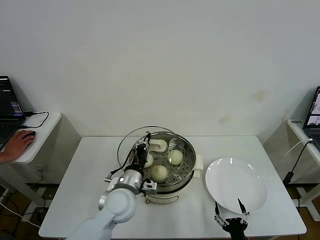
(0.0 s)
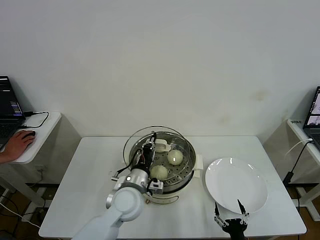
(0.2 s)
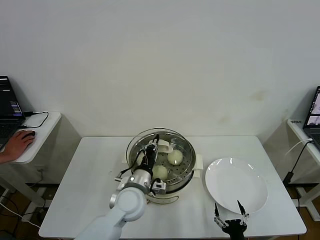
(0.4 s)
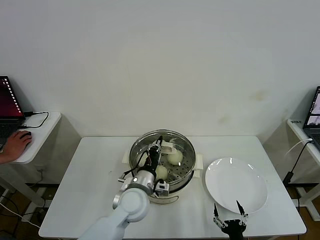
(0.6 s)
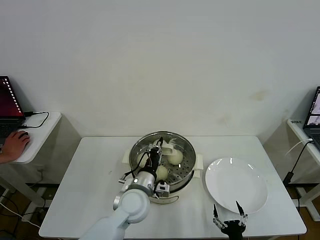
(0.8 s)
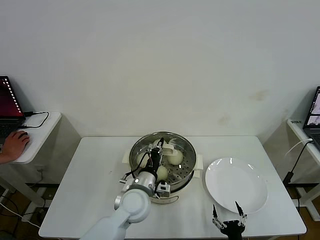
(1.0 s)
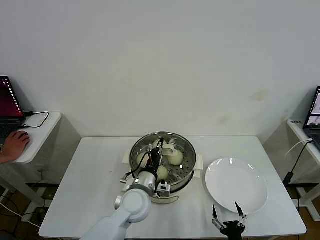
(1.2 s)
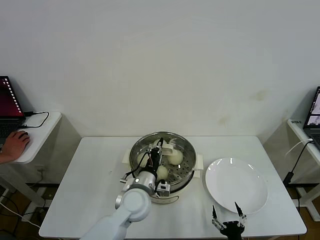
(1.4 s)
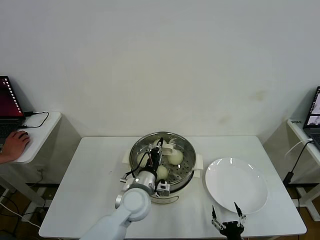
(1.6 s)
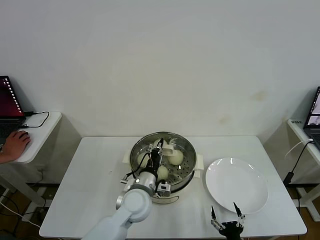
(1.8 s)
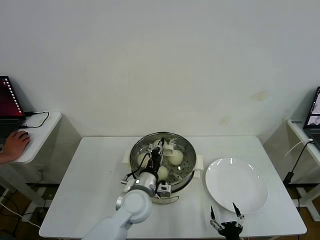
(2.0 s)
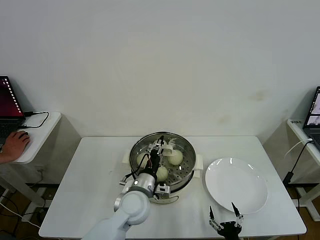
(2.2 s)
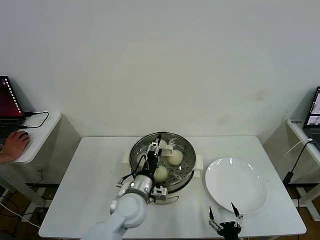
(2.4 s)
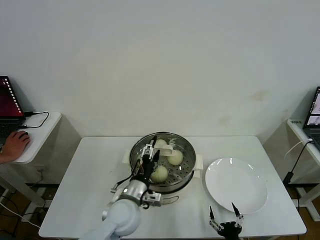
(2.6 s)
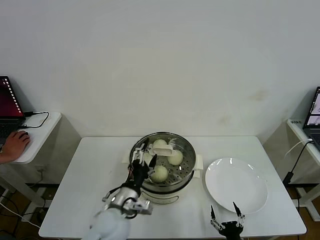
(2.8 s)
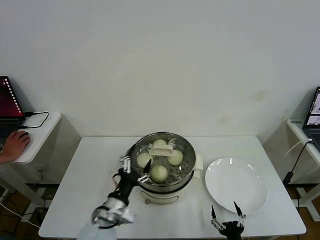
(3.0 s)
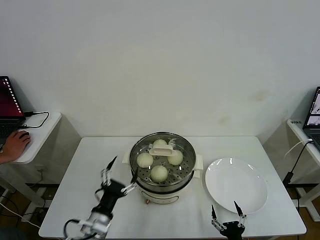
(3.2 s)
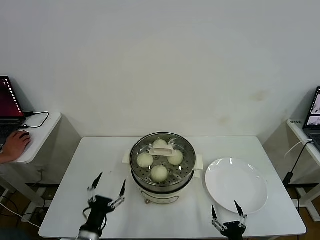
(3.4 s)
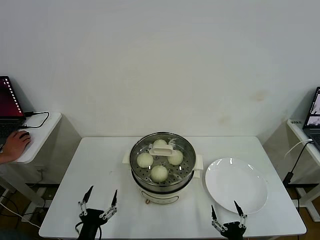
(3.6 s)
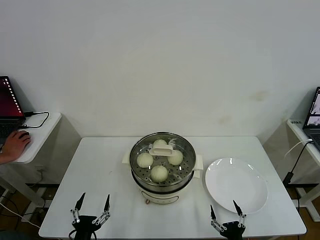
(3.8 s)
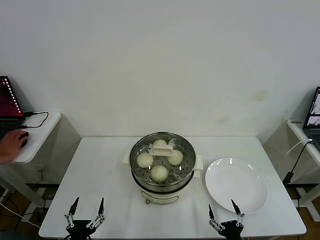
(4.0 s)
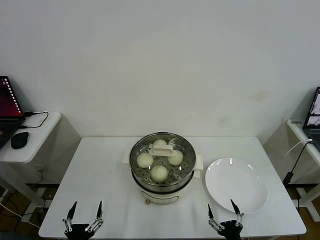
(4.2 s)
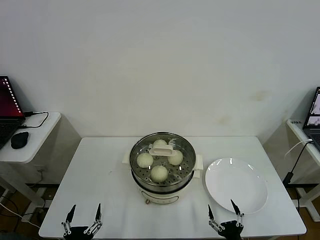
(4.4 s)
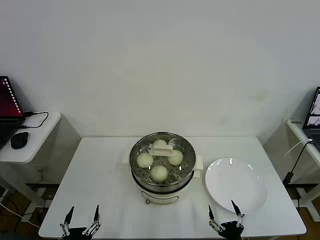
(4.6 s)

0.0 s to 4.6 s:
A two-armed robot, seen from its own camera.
Task of the whole recording: take steamed baozi put them in steamer then cover it.
Step, 0.0 to 2.6 s: Place the pot lid on the steamer with left gripper.
0.0 to 1.6 s: The left gripper moves some 5 cm.
1.6 to 3.0 s: The left gripper goes roughly 10 cm backward and to the left, and opens its fingers.
3.0 to 4.6 s: The left gripper heads backward, to the left and downward, covering roughly 20 cm.

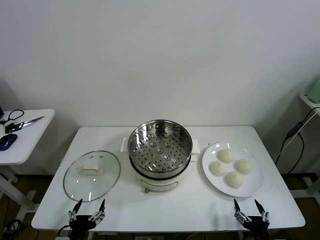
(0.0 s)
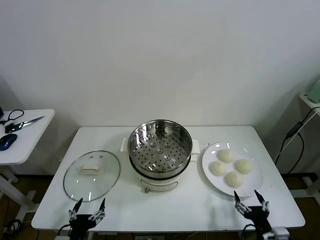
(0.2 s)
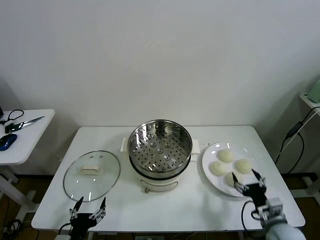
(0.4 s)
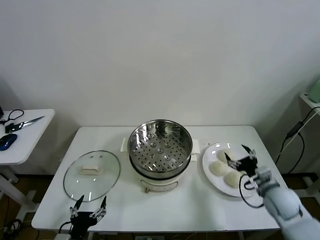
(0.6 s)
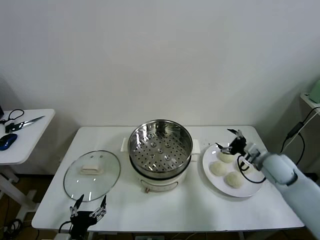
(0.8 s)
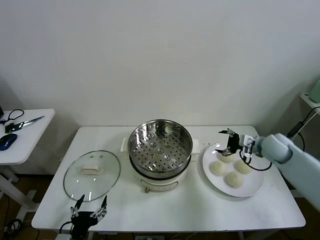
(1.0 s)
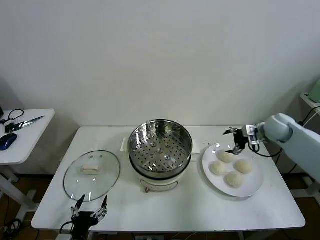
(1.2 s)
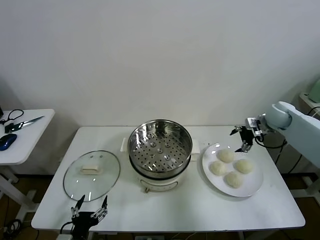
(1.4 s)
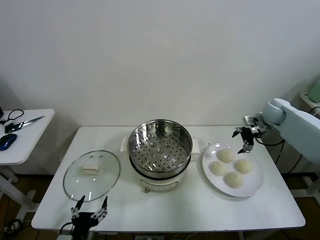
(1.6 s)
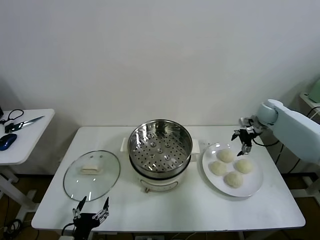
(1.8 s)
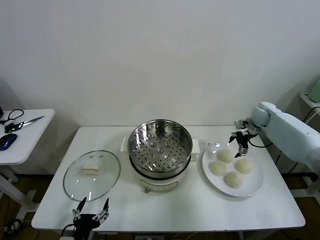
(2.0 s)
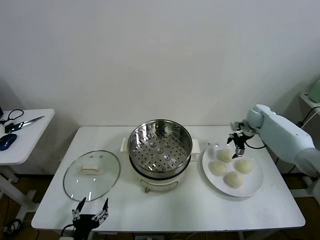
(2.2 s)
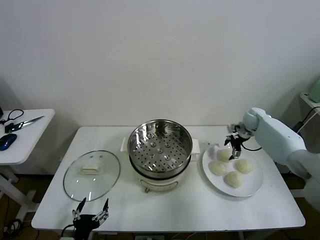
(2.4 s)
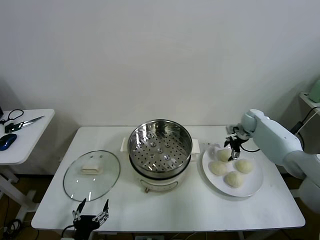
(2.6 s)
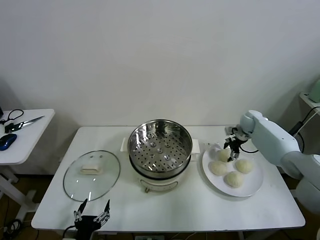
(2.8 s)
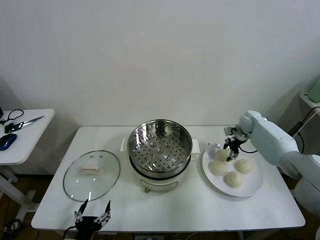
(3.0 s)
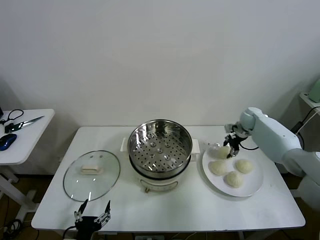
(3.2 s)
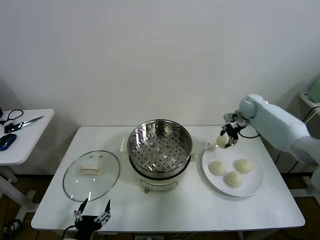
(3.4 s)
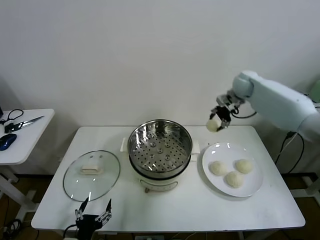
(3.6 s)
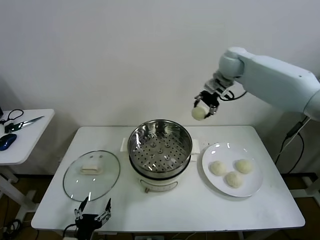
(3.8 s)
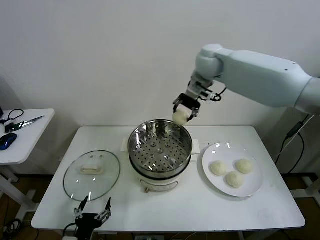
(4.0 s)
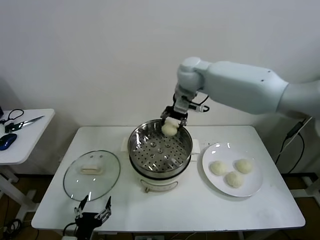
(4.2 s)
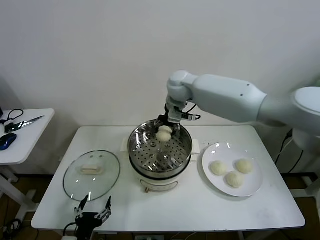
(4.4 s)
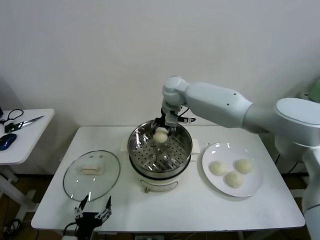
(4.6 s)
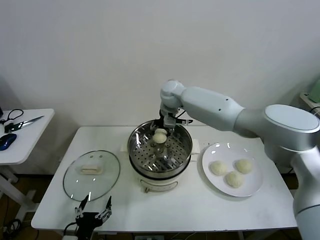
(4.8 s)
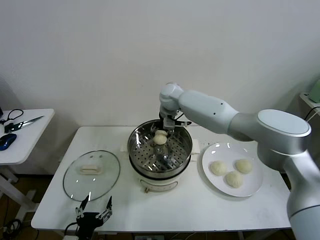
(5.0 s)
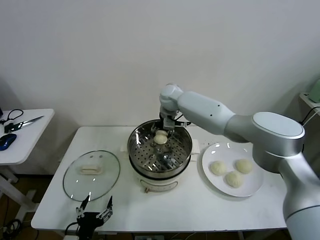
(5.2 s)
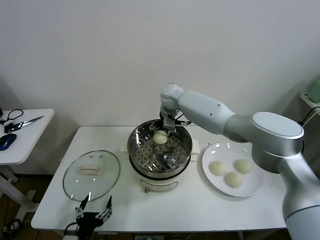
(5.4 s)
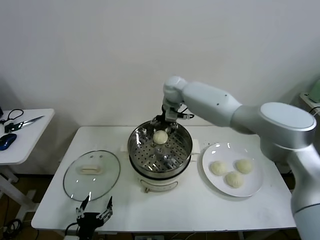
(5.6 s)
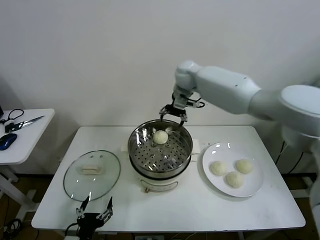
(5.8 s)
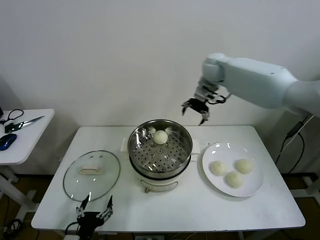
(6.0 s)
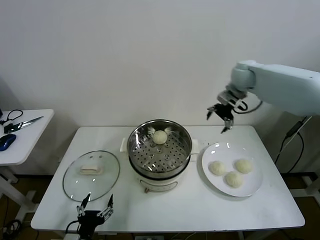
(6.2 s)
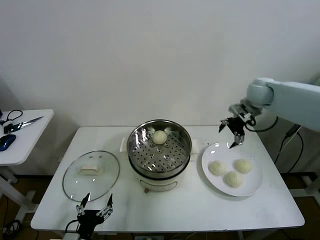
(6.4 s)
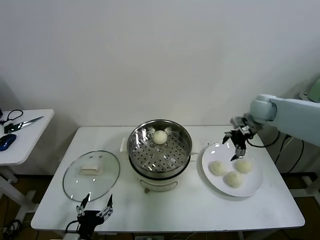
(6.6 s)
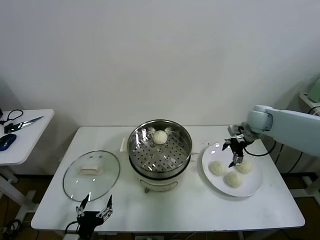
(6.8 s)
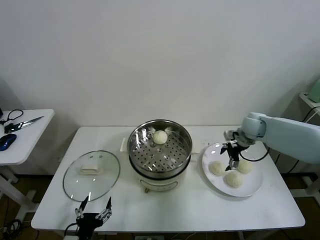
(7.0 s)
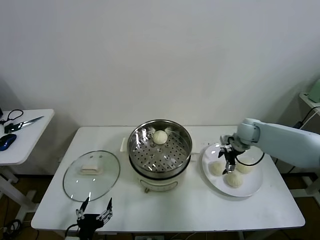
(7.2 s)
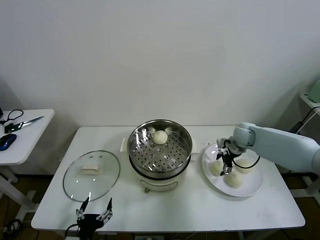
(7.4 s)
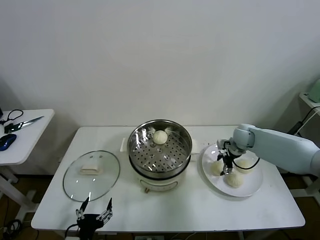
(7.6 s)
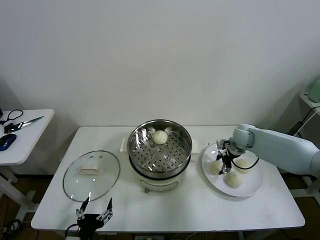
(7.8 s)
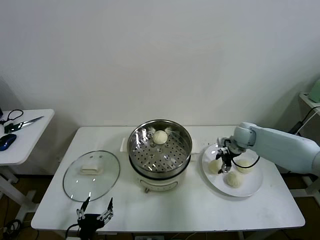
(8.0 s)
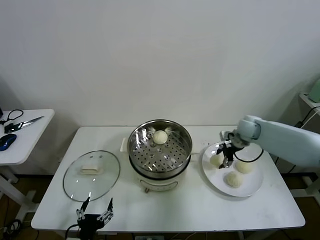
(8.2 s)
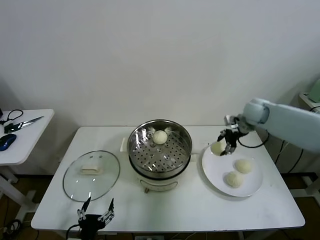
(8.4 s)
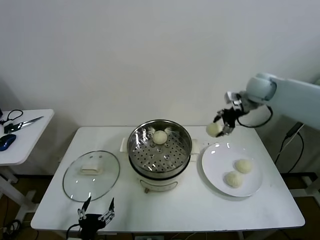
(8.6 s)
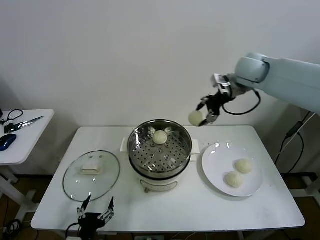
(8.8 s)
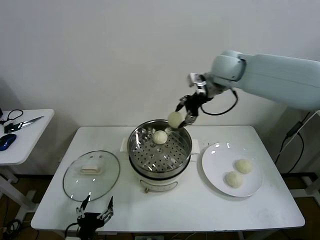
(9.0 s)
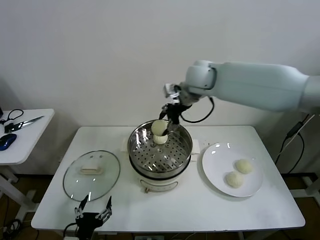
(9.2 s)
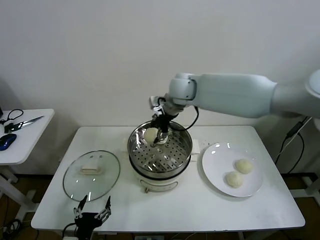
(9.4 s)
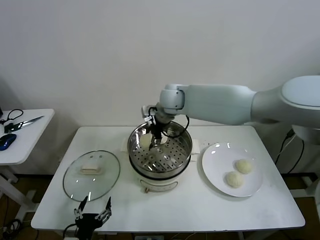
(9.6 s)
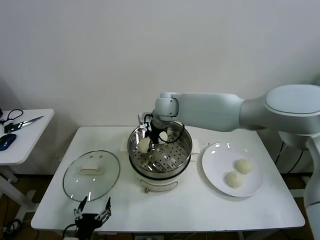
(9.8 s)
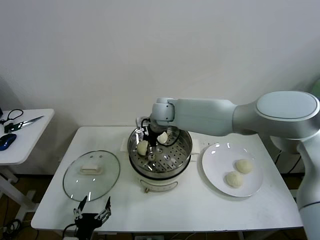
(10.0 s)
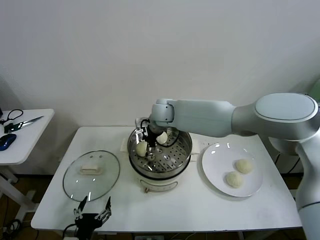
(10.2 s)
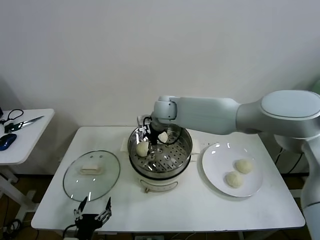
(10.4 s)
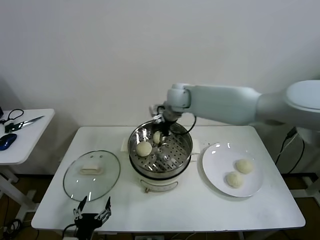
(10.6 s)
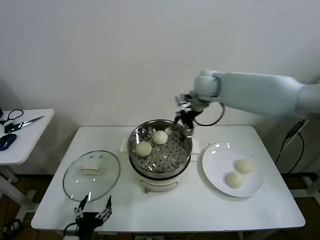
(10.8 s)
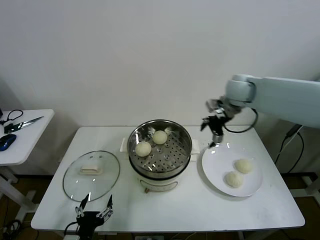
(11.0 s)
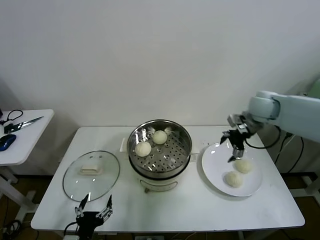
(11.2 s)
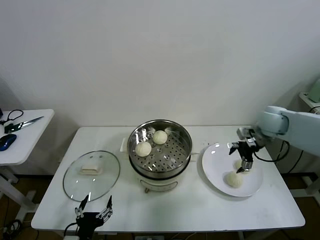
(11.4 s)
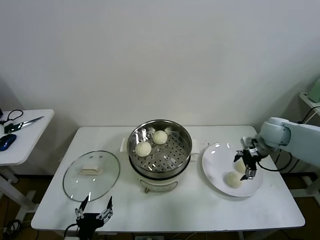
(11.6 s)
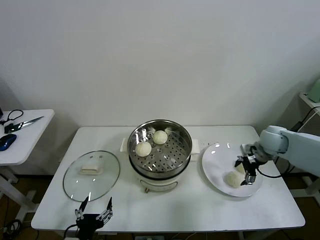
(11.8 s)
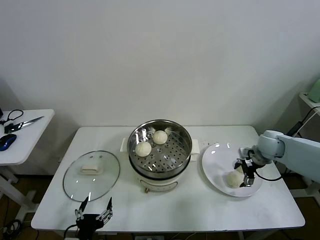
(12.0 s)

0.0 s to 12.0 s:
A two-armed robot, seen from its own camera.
Task of the whole recording: take steamed baozi put them in steamer then cover it.
Step, 0.0 to 2.8 s: Grasp the baozi in the plate with right gripper.
Step, 3.0 to 5.4 s: Place the baozi on the steamer with right gripper.
Step, 5.6 to 7.8 s: Grasp the baozi in the plate with right gripper.
Step, 8.0 to 10.4 s: Place the baozi on the steamer with right gripper.
1.6 to 3.0 s: The right gripper is displaced downward by roughly 10 cm, and closes up.
3.0 to 4.4 s: The right gripper travels to the left and upward by about 40 cm.
4.4 to 6.0 s: The right gripper heads to the right, covering about 20 cm, and opens up.
6.0 to 7.6 s: The right gripper shifts approximately 25 cm downward, and closes its fingers.
7.6 to 9.0 s: The right gripper travels upward and to the left by some 35 cm.
9.0 to 10.4 s: The right gripper moves downward and to the left, approximately 15 cm, and opens.
10.4 to 12.0 s: The right gripper shifts approximately 35 cm to the right.

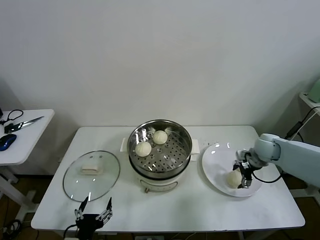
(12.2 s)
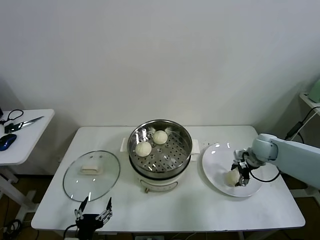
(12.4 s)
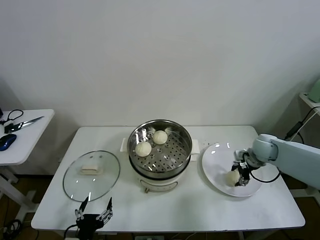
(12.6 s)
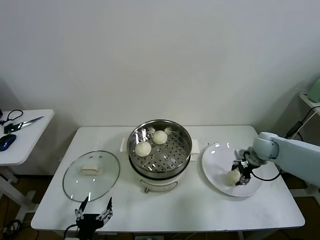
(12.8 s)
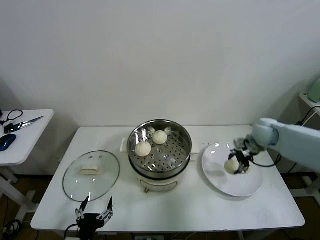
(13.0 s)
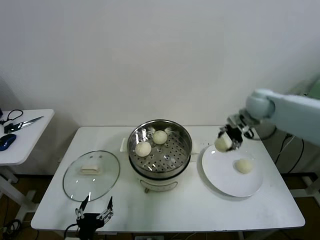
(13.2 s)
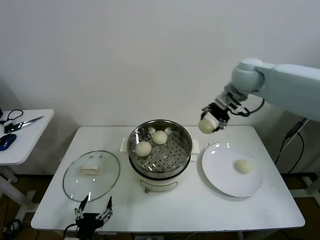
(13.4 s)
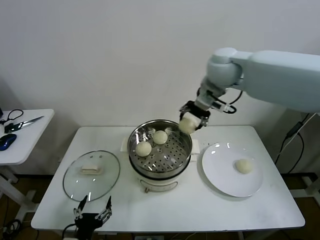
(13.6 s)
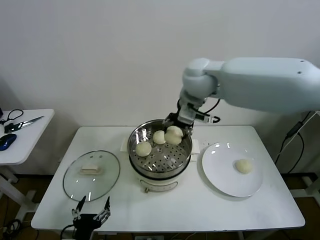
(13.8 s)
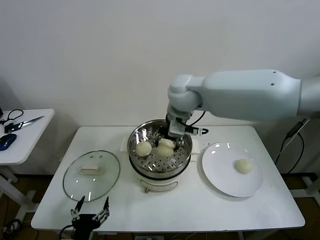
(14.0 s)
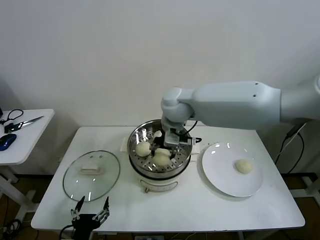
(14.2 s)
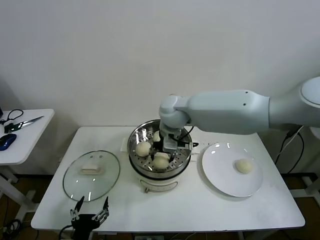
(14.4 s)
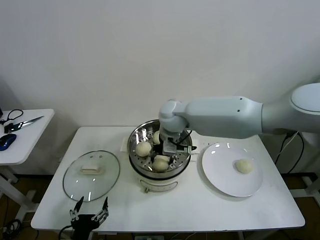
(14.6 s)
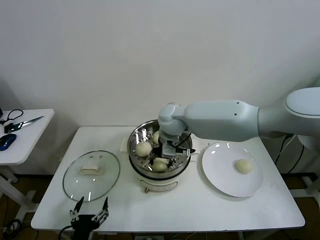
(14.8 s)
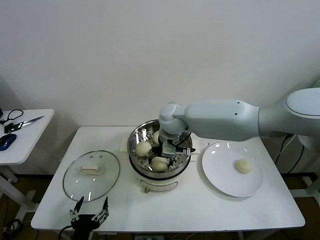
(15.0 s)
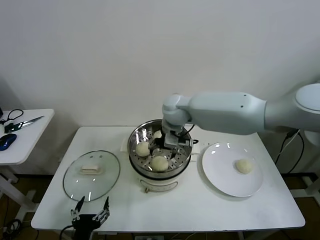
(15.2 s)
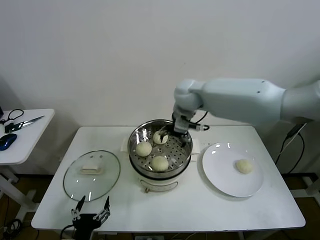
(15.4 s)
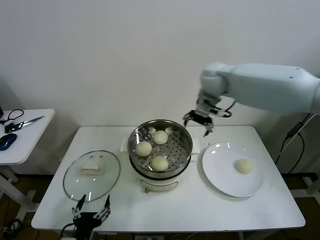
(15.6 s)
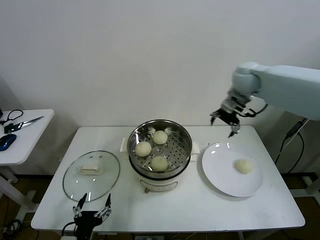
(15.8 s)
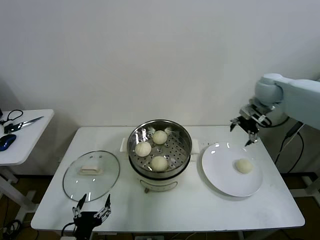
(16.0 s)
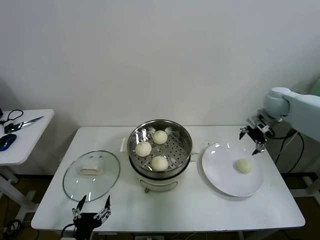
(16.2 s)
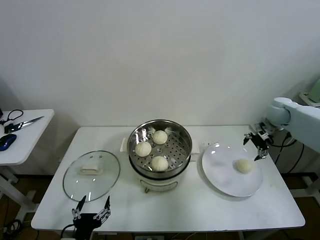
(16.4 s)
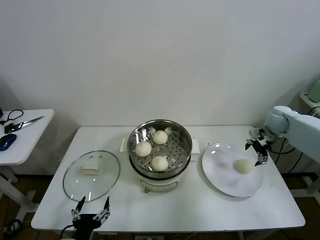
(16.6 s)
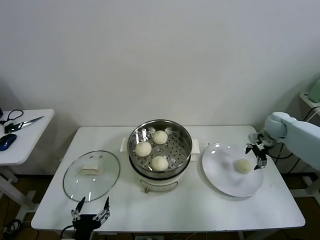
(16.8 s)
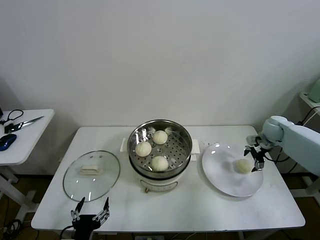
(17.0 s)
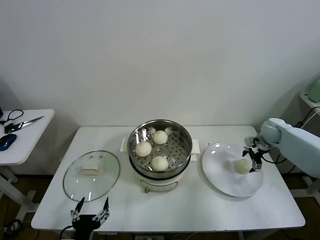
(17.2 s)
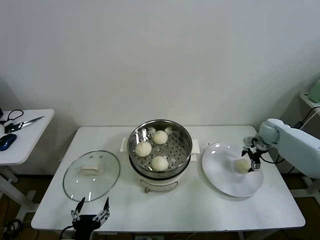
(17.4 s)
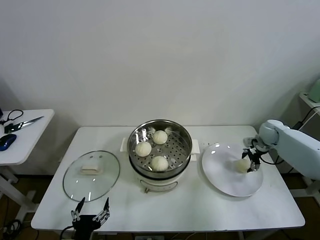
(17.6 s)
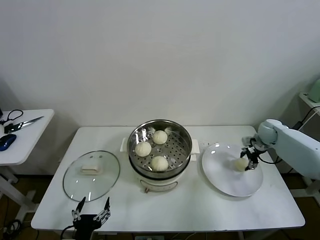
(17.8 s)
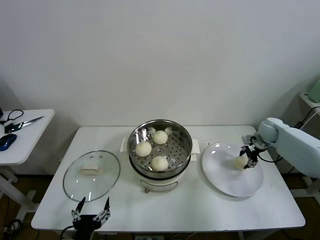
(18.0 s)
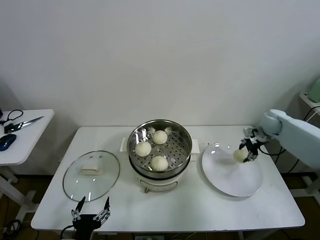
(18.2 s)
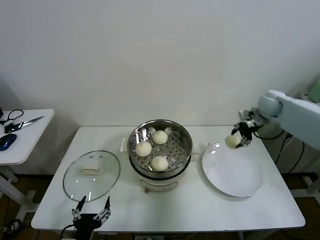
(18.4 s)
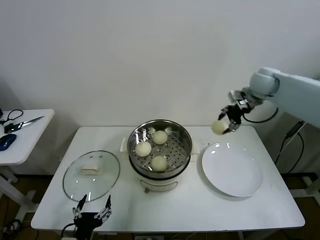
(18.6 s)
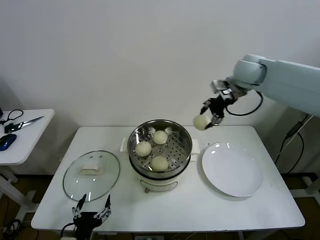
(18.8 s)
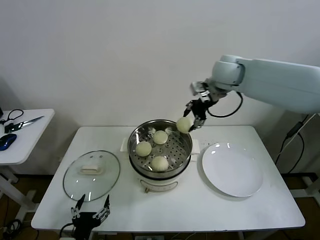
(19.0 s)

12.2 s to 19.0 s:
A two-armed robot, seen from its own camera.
Task of the whole recording: take steamed baozi put them in steamer then cover it.
Step, 12.8 to 15.0 s: Place the baozi on the steamer with right gripper.
Step, 15.2 to 17.6 s: Grasp the baozi in the plate with right gripper.
12.2 to 13.6 s: The right gripper heads upward and to the left, covering about 40 cm, and closes its fingers.
13.6 to 15.0 s: The right gripper moves downward and to the left, approximately 20 cm, and opens its fingers.
15.0 to 16.2 s: The right gripper goes roughly 35 cm to the right.
16.2 to 17.6 s: The right gripper shifts about 15 cm downward, and closes its fingers.
17.6 to 19.0 s: The right gripper travels upward and to the left by roughly 35 cm, and closes.
